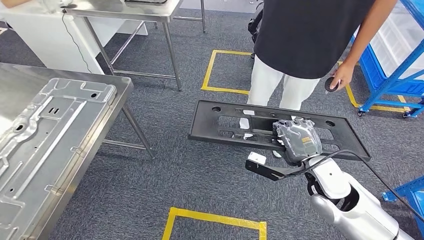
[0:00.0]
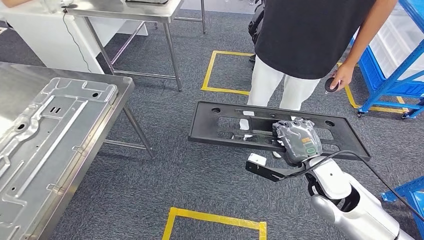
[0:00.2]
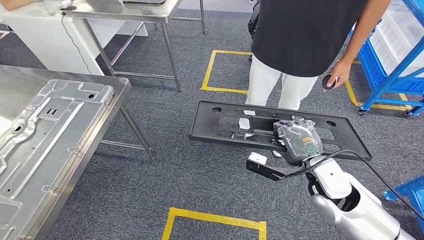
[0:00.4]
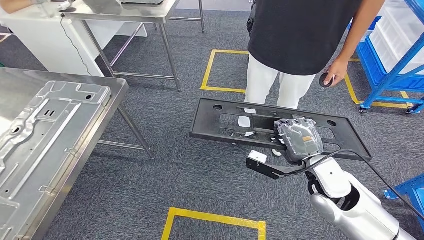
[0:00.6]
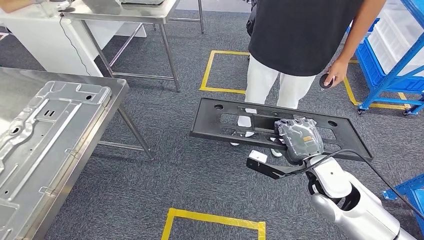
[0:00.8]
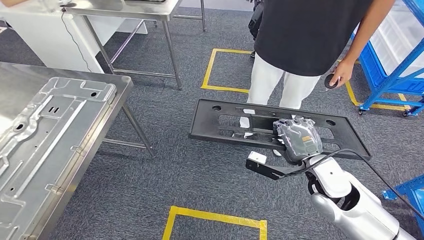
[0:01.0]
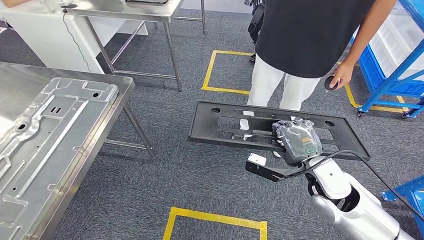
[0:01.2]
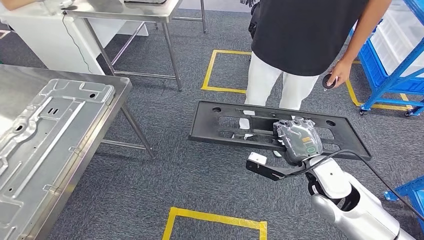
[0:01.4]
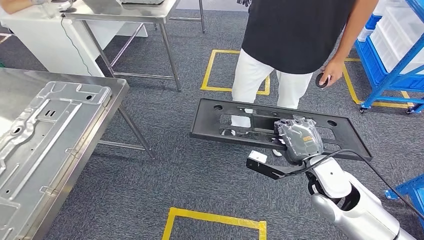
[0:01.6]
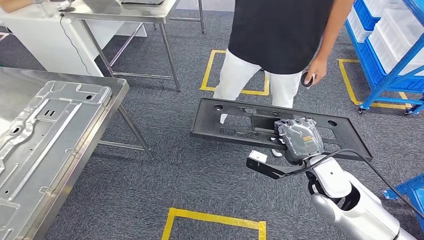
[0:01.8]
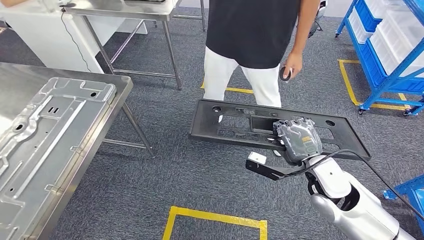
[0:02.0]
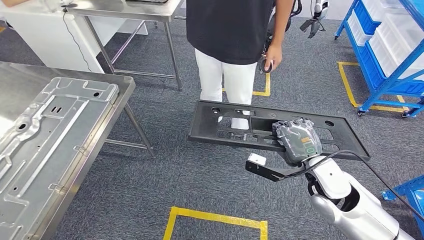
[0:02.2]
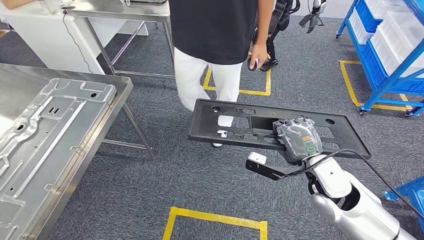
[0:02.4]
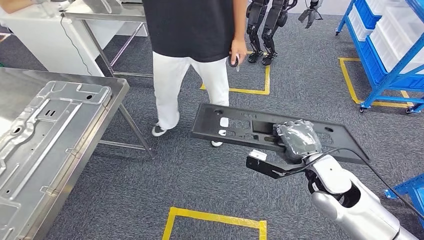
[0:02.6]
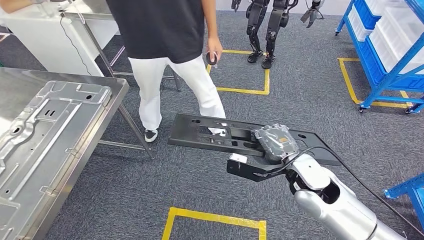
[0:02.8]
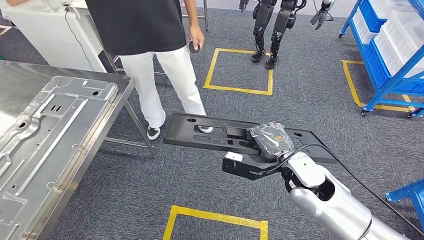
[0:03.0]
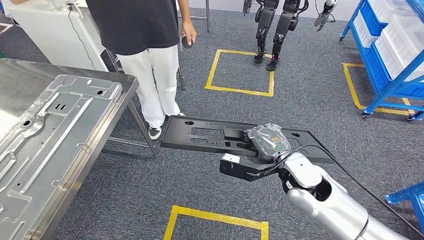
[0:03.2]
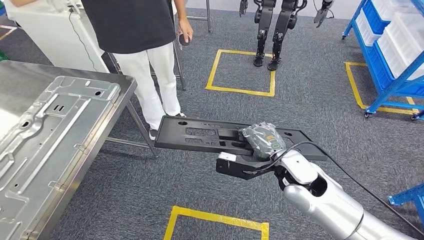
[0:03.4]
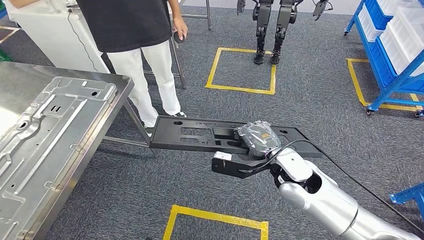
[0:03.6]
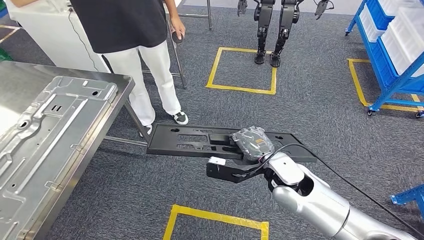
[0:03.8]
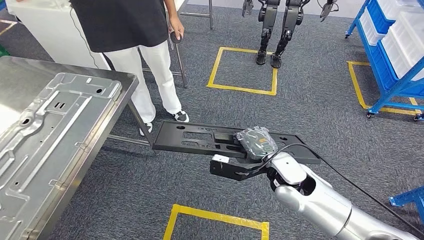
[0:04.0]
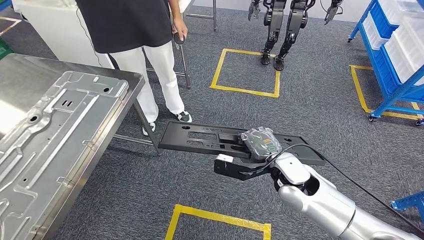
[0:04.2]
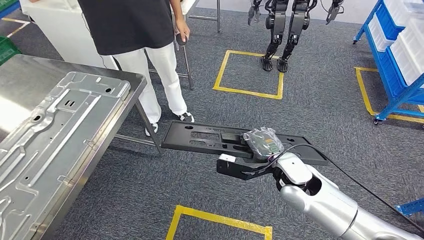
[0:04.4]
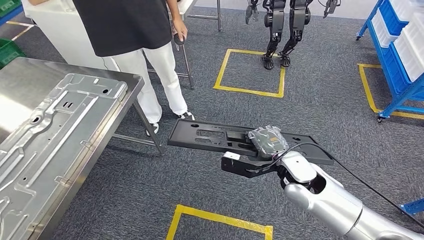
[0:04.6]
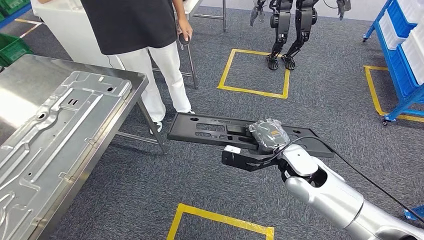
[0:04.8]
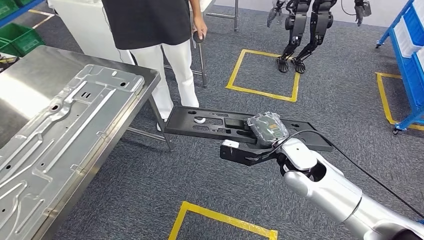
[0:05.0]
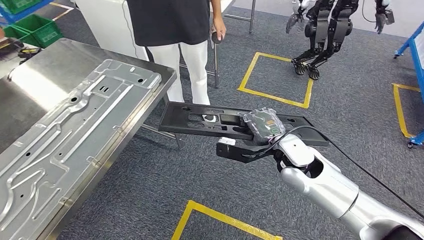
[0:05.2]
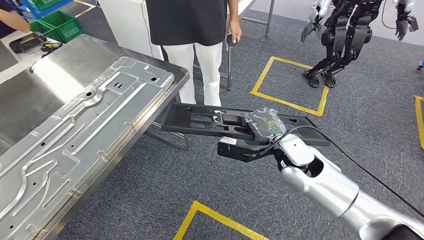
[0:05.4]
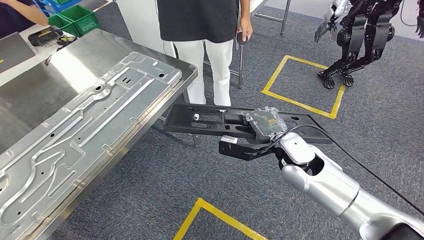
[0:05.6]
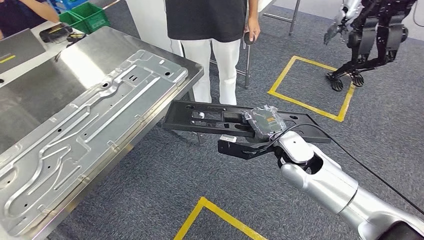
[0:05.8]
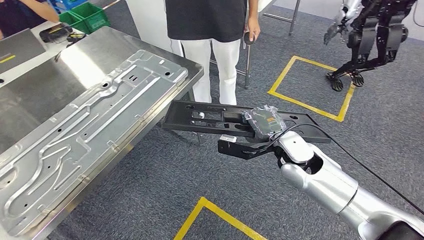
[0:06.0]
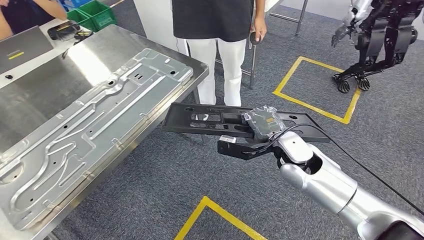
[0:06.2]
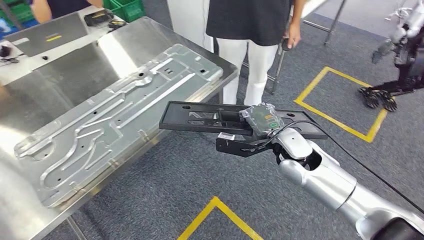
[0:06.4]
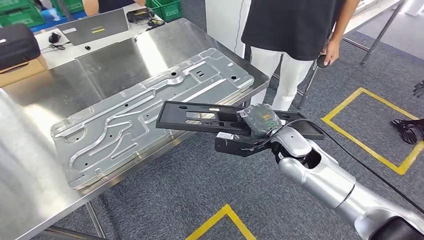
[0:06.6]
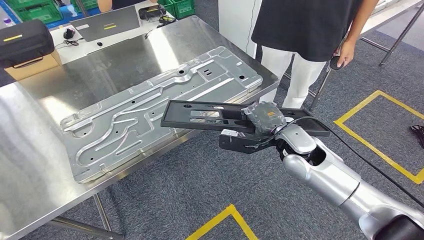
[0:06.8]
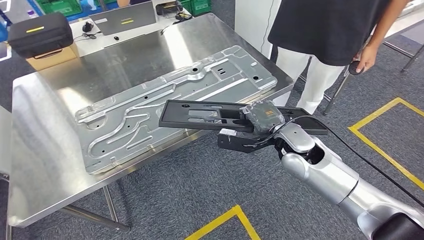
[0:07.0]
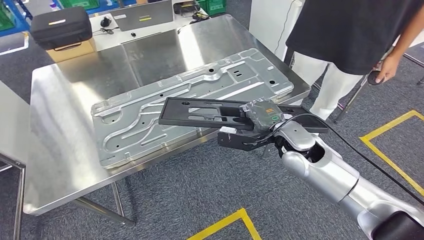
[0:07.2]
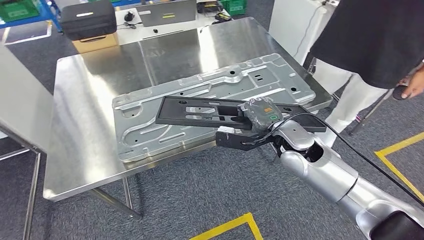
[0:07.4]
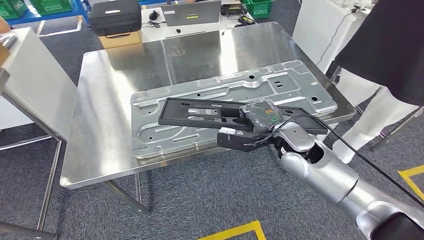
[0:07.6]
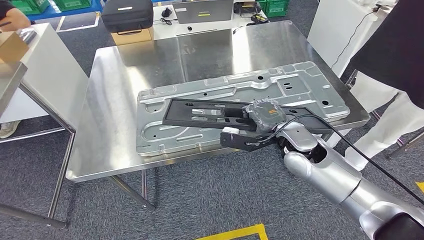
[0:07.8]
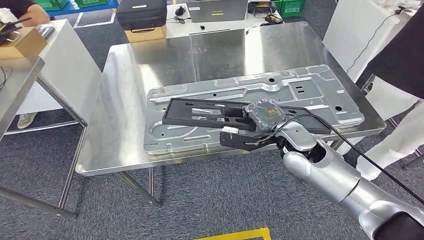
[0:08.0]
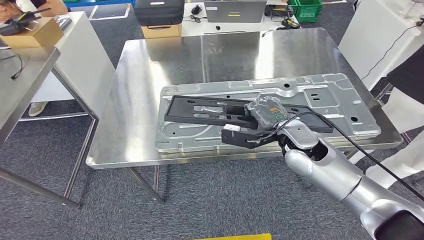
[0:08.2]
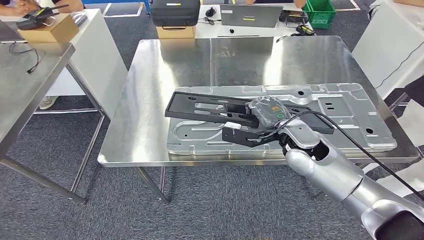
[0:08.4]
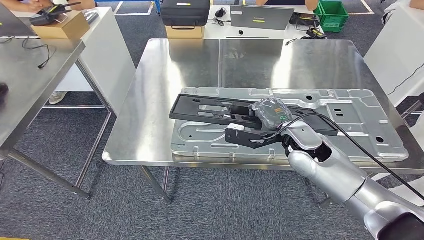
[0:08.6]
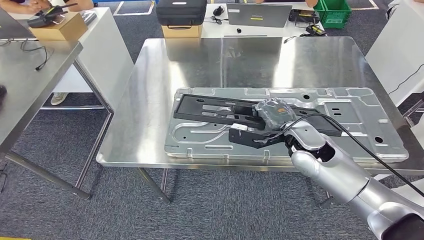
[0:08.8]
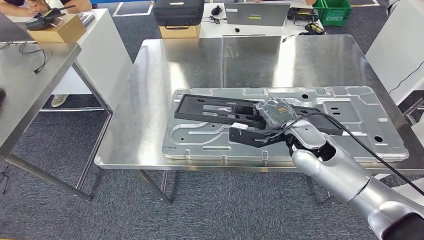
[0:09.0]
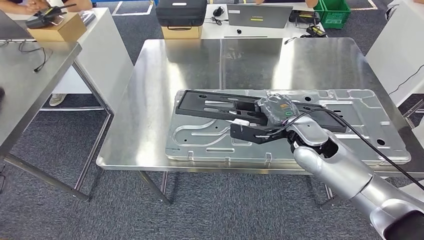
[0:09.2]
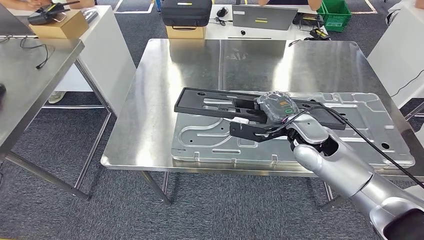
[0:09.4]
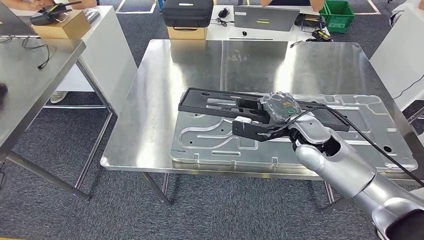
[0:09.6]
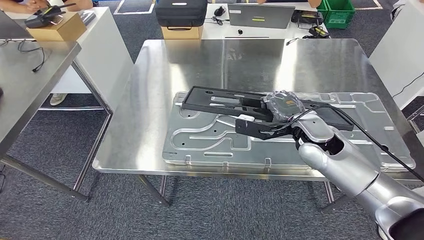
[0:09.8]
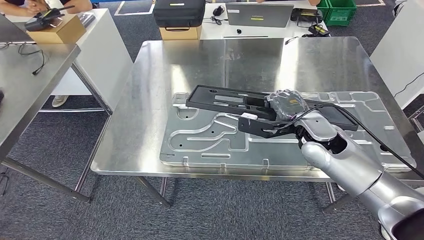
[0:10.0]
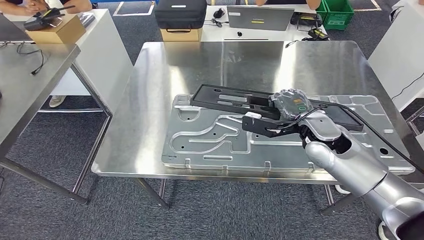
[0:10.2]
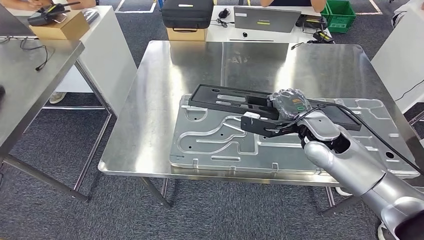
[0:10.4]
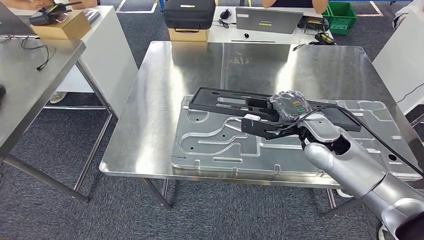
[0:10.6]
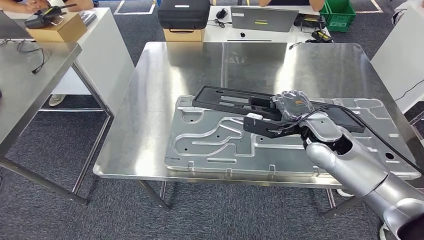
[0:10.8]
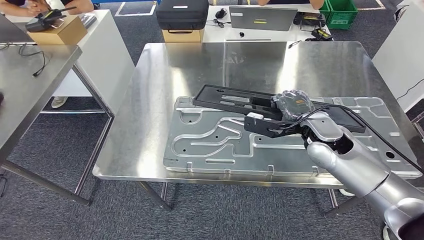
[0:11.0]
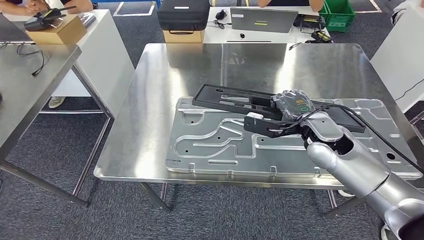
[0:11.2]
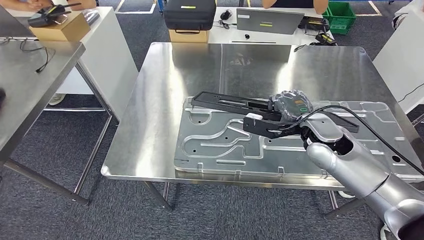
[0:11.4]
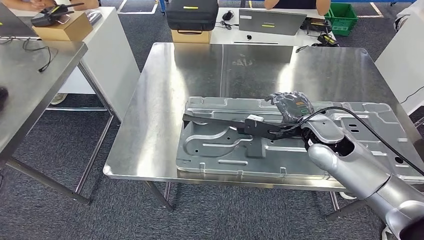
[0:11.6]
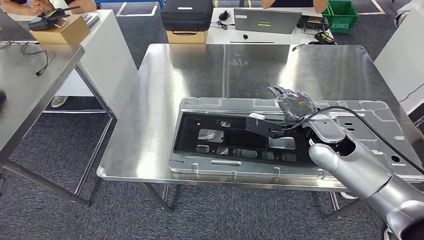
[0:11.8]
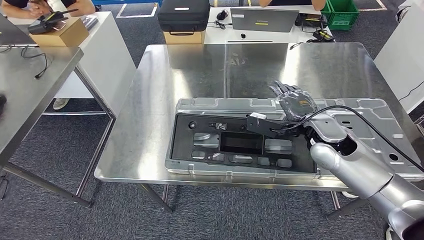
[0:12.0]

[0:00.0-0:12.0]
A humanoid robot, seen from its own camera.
Step, 0:00.0 to 0:08.2: Move the large material to the front of the workbench.

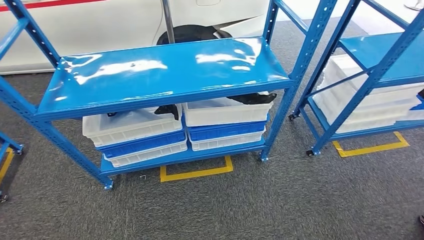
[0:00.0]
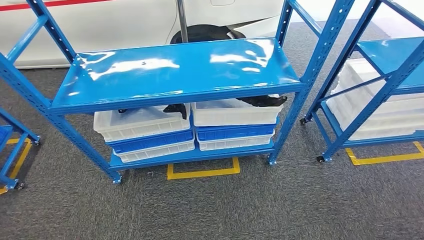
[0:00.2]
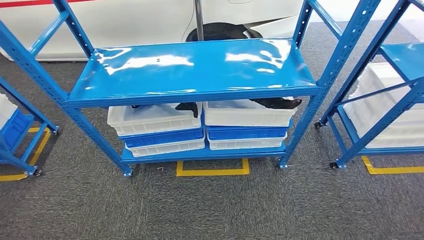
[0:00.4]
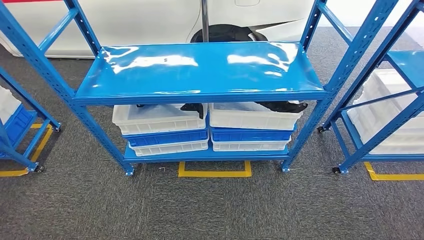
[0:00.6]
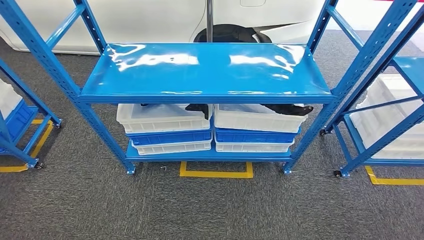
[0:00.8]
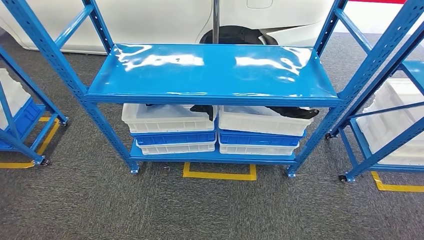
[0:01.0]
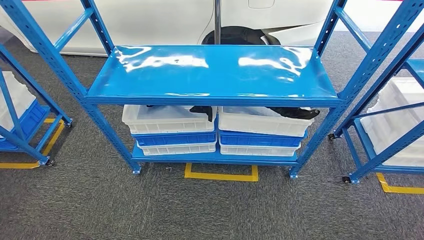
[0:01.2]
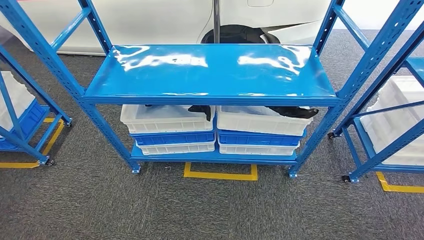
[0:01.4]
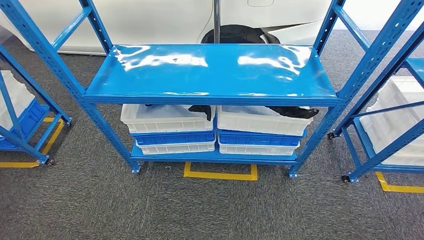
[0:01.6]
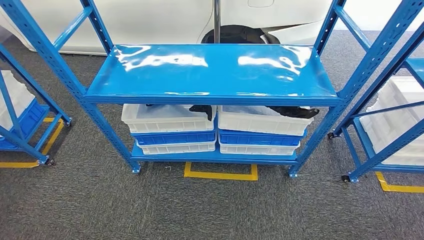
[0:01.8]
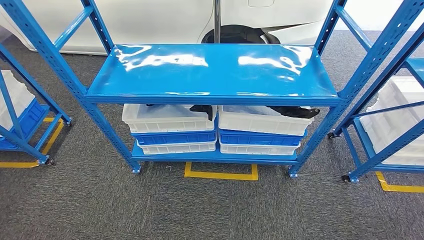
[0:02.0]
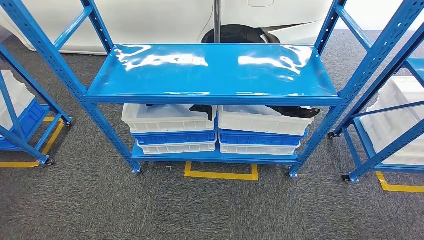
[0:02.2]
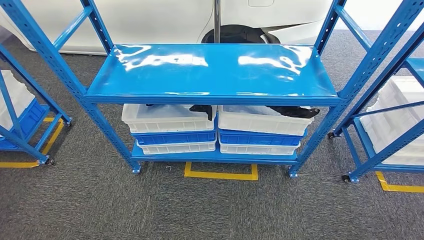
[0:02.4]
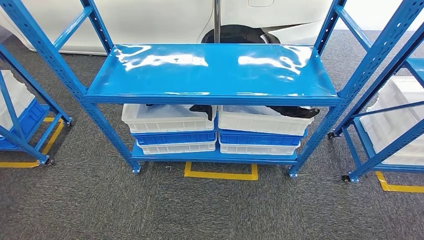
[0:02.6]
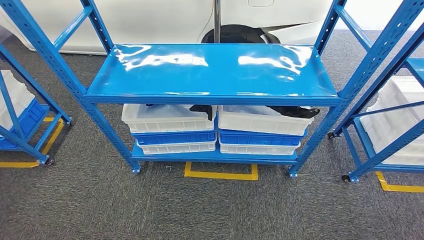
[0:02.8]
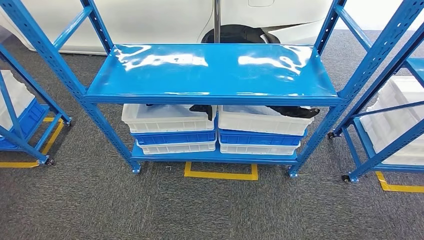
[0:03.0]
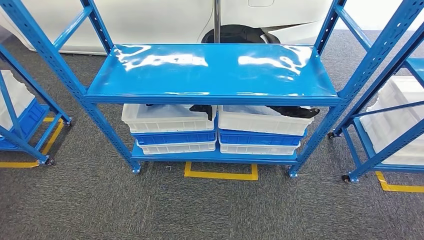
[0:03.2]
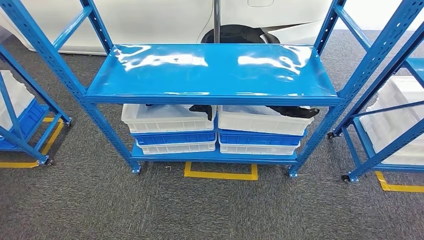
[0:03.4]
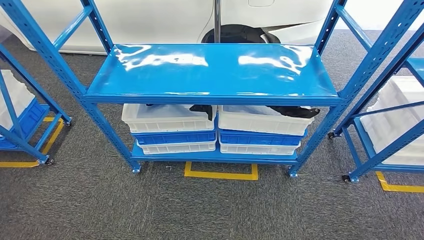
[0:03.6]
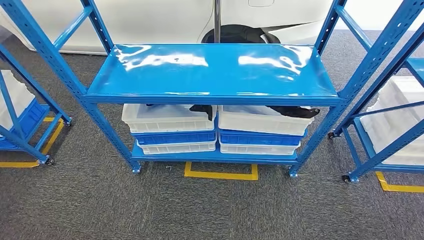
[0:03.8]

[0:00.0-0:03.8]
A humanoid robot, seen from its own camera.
Step, 0:00.0 to 0:03.6: Move to the initial position of the shelf.
0:01.2 to 0:02.6: Both hands stay about where they are.
